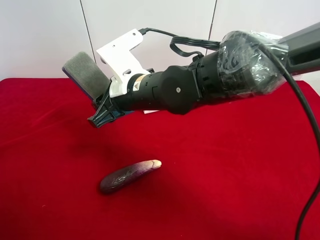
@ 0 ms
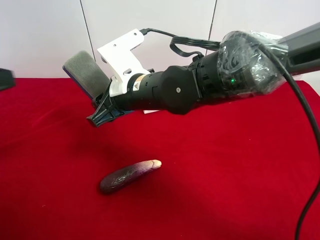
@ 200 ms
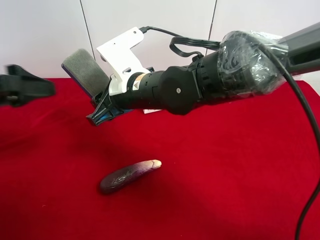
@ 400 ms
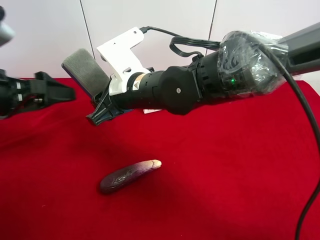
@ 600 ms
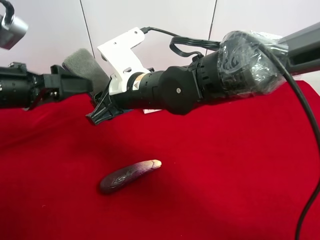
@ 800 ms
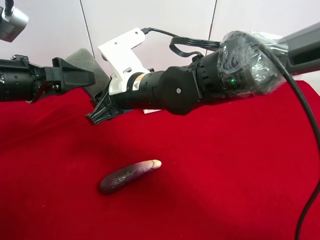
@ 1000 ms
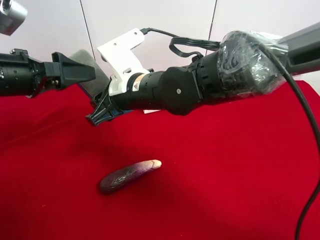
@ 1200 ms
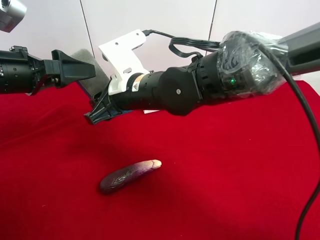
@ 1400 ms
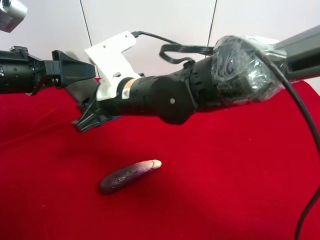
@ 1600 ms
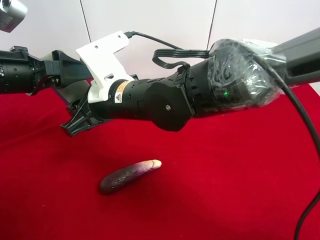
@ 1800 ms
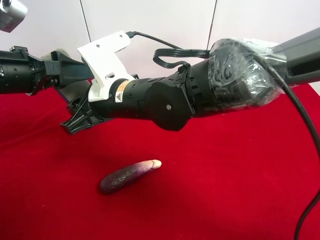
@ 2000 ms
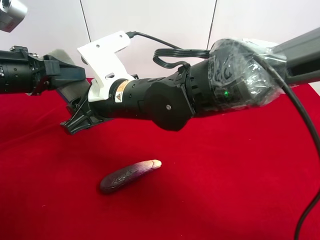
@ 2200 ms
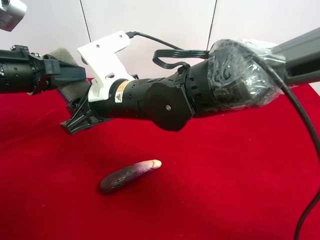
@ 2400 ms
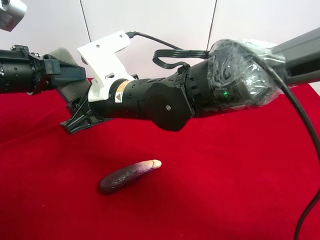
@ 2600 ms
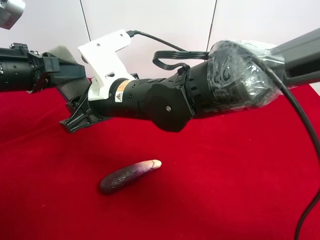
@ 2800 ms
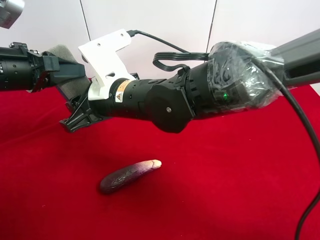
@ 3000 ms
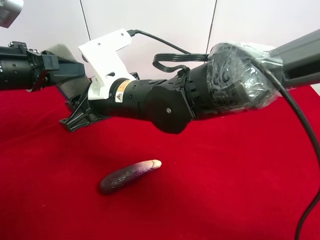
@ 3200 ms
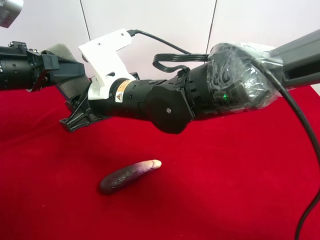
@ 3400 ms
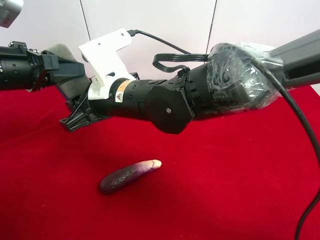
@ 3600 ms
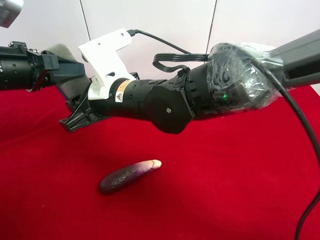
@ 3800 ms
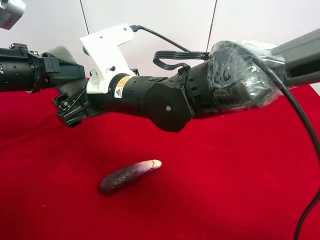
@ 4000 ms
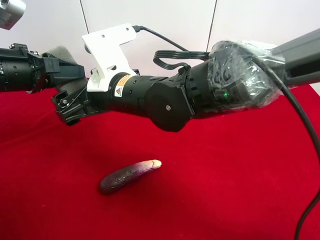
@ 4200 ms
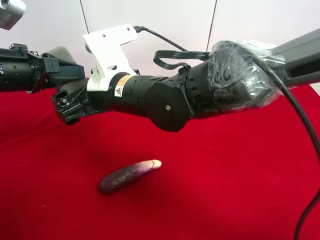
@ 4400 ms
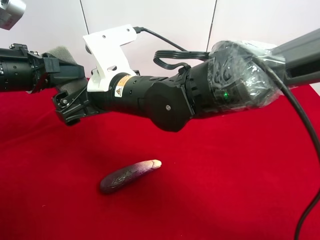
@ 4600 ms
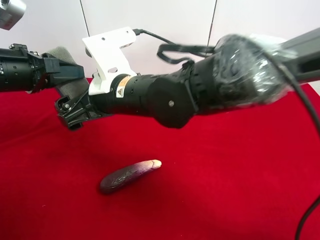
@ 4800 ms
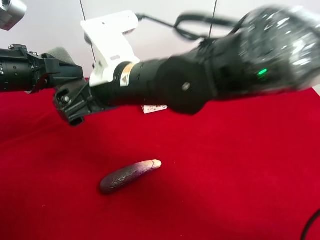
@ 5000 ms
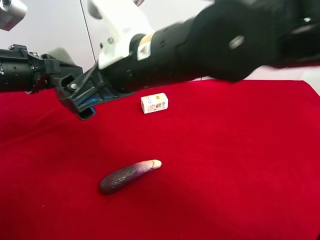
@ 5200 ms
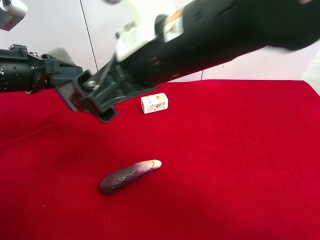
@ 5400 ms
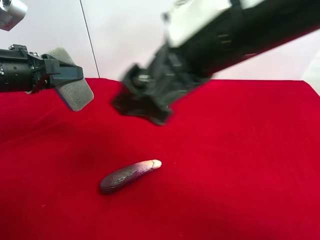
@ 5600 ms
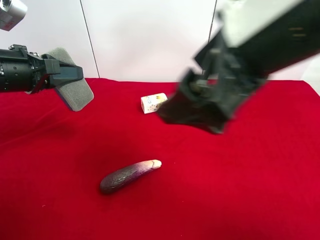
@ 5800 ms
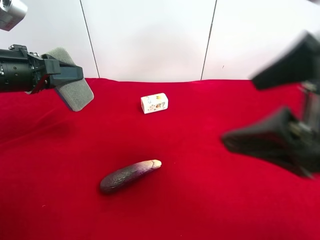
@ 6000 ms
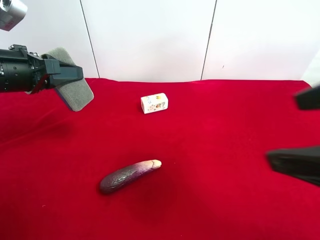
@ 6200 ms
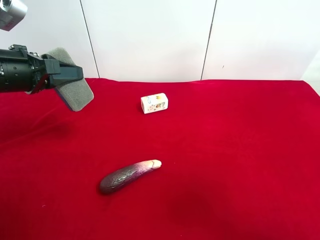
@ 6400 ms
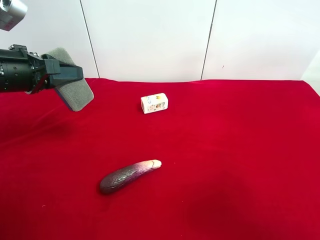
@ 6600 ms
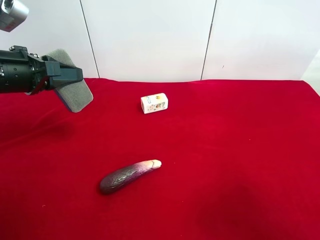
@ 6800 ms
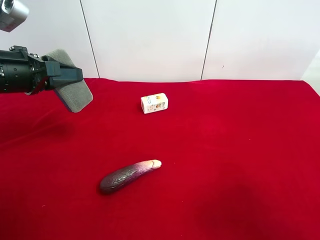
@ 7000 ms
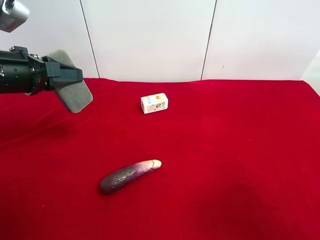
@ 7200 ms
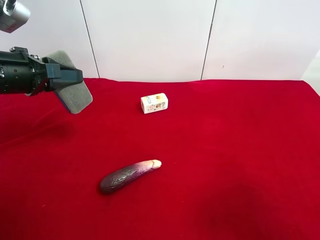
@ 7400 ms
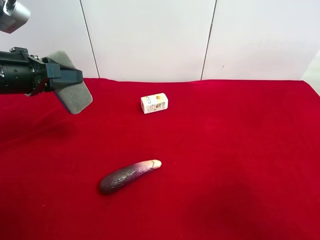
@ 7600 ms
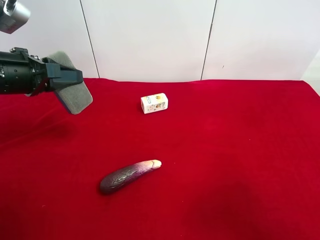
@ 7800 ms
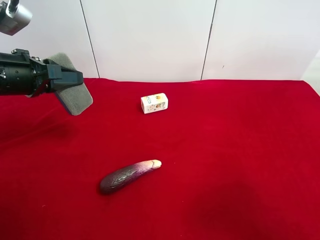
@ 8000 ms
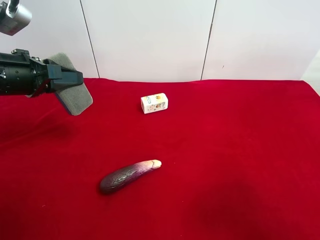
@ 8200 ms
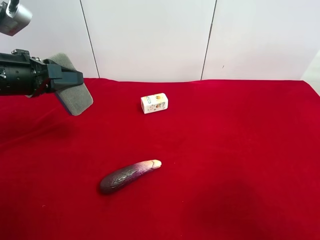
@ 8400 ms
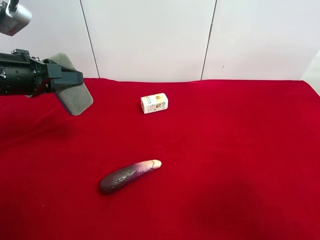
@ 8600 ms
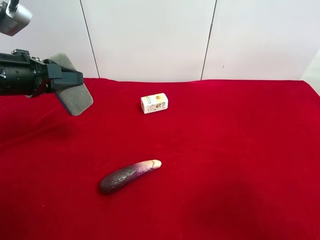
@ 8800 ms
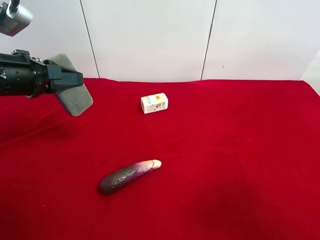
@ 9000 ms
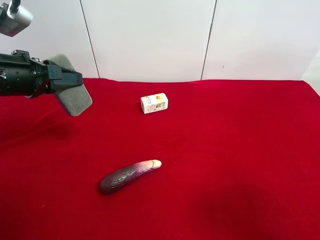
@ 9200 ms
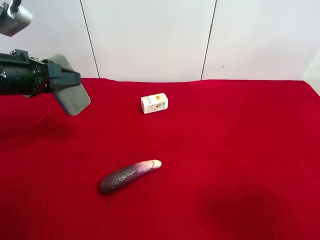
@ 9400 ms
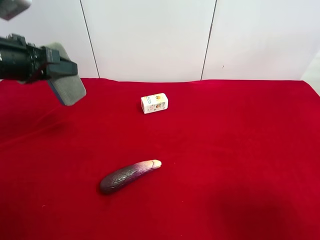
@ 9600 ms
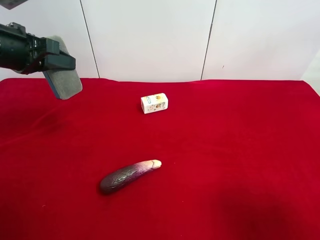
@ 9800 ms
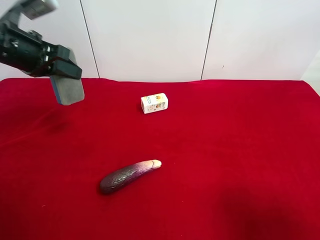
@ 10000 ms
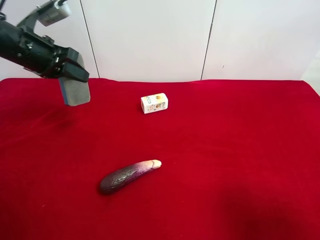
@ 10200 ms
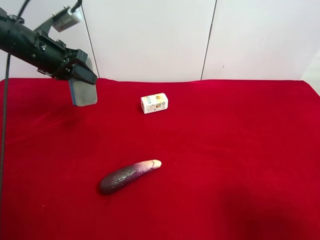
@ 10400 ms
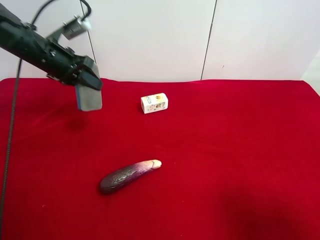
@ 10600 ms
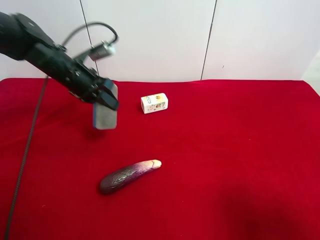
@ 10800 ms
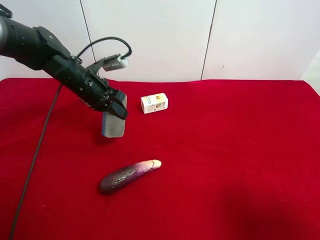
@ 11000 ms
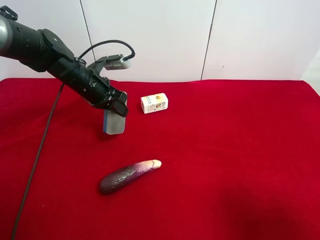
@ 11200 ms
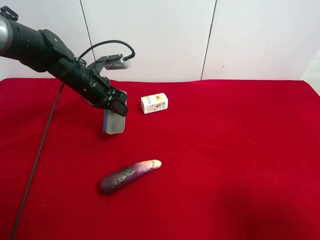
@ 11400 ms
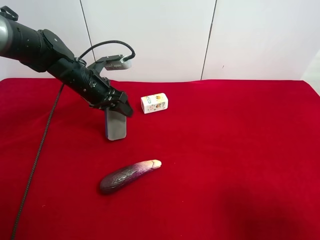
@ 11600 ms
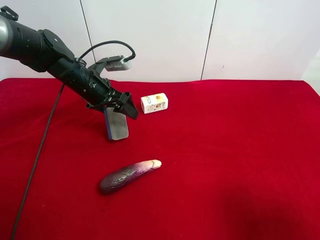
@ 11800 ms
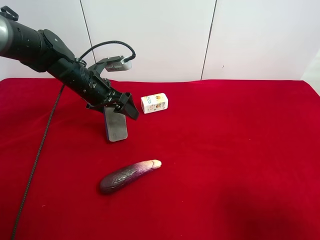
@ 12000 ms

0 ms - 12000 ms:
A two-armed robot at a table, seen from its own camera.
Task of the whole recording: use the right gripper to pick up the item and transfer it from the right gripper to the left gripper.
Step, 0 ms - 4000 ms: Pass the blue blackboard erasure to the left gripper.
0 ms - 1600 ms: The left gripper is displaced forward and downward by approximately 15 cm.
1600 ms - 3000 ms: The left gripper closes up.
3000 ms - 4400 ms: The right gripper opens.
4400 ms - 6000 ms: The right gripper goes approximately 30 cm to the right, backward and upward.
6000 ms - 7600 ms: The right gripper travels to the right, backward and downward by roughly 15 cm.
7600 ms - 9000 ms: Both grippers stay about where they are.
9000 ms - 10400 ms: The left gripper is displaced forward by about 10 cm.
10400 ms - 12000 ms: The left gripper shifts some 10 cm downward and to the right, and opens.

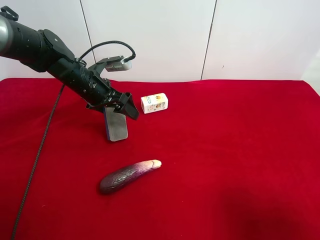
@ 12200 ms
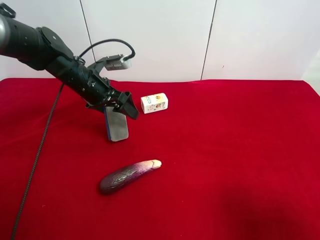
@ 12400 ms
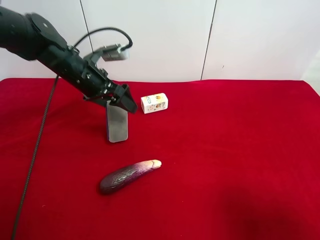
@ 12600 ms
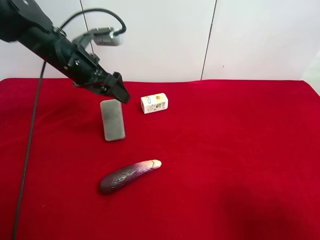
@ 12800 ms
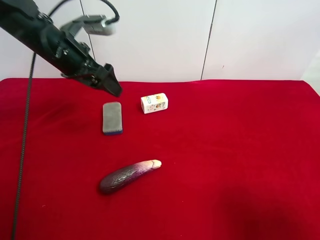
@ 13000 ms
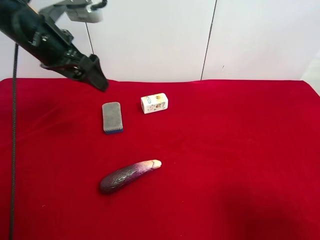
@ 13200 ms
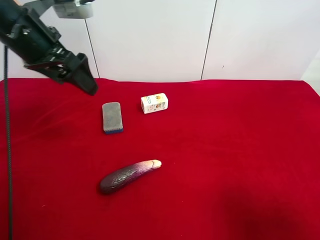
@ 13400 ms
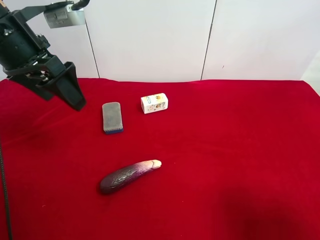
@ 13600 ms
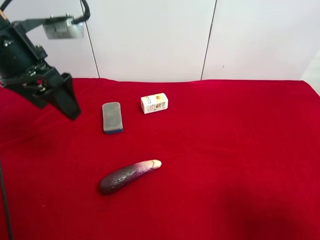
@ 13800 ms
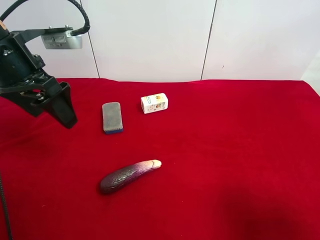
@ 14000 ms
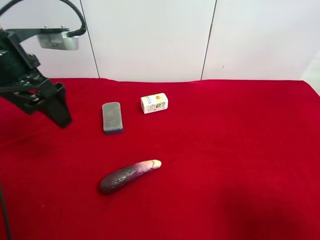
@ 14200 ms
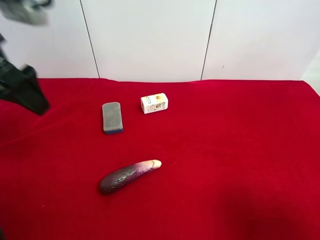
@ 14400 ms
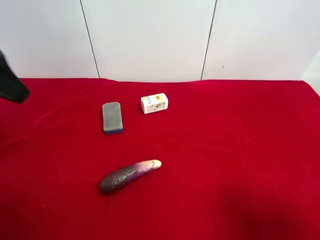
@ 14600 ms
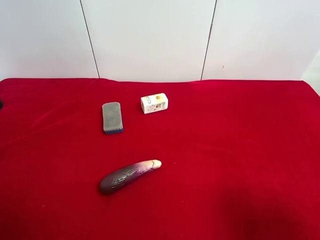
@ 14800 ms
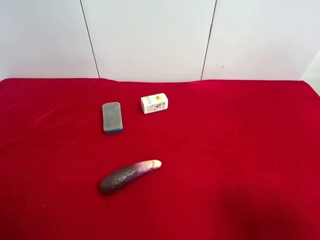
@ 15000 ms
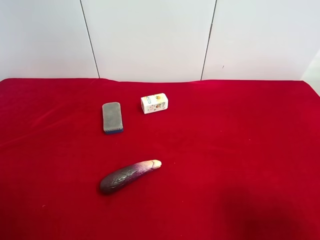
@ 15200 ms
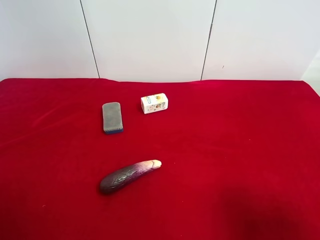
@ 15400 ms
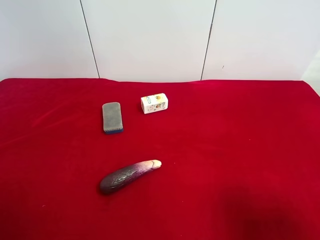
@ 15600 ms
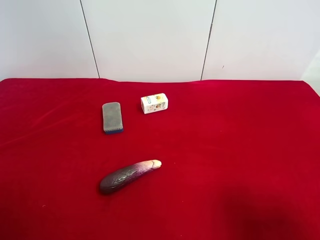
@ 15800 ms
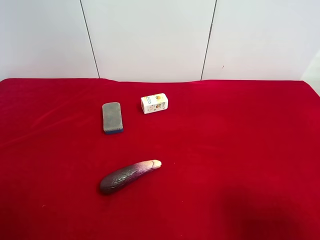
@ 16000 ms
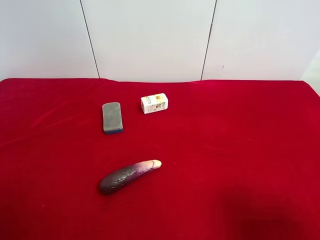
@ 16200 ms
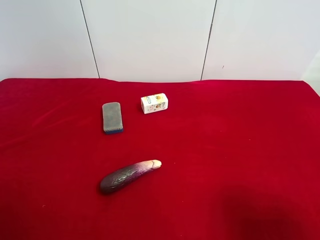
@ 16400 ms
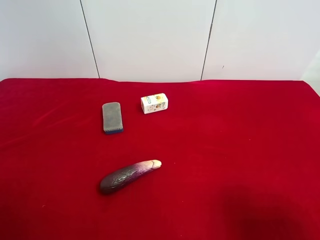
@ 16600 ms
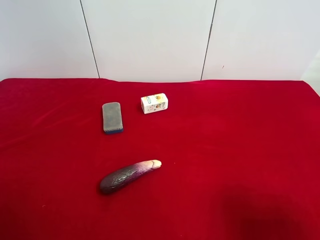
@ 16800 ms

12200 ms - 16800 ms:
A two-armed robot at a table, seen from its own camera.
Task of the whole recording: use the right gripper to pick up the item and transfer it from the right gripper to the left gripper.
12200 ms - 13800 ms: The left gripper travels upward and backward by roughly 20 cm.
13800 ms - 15200 ms: The left gripper travels backward by some 20 cm.
